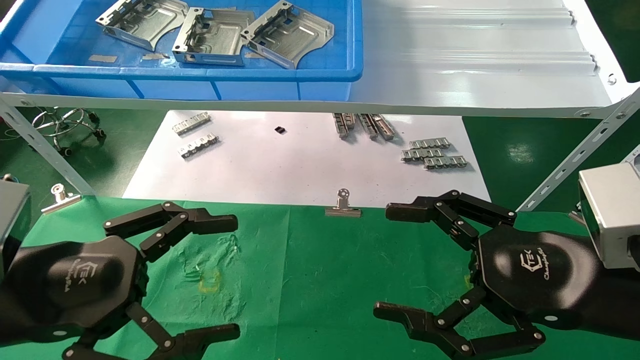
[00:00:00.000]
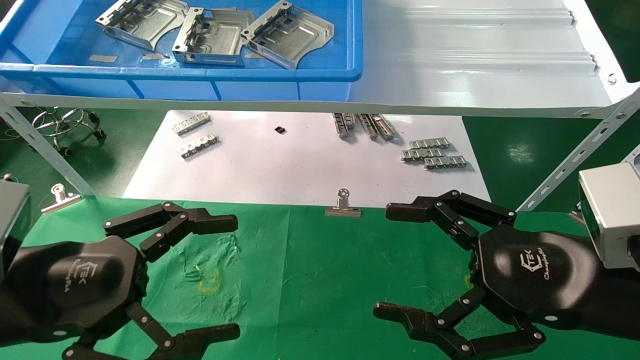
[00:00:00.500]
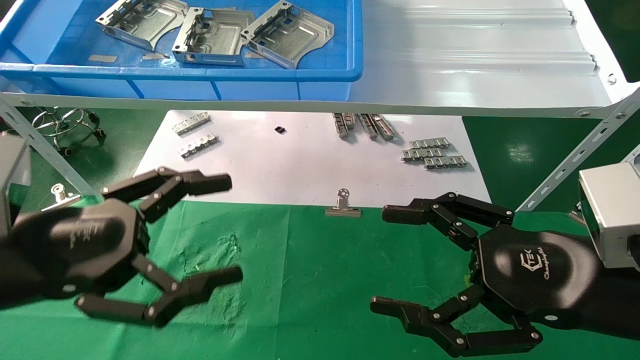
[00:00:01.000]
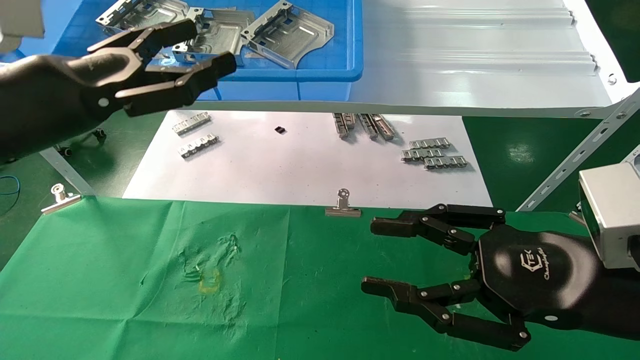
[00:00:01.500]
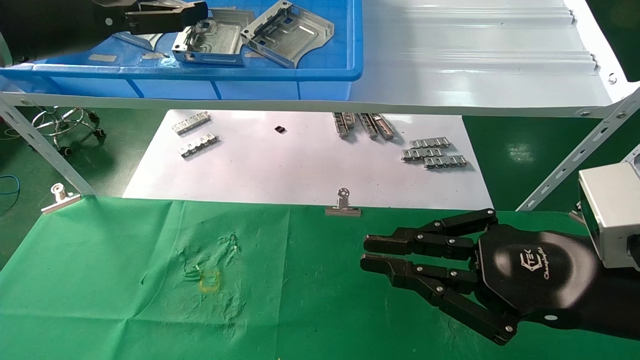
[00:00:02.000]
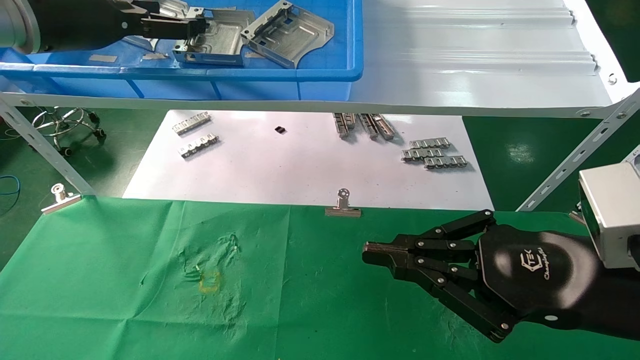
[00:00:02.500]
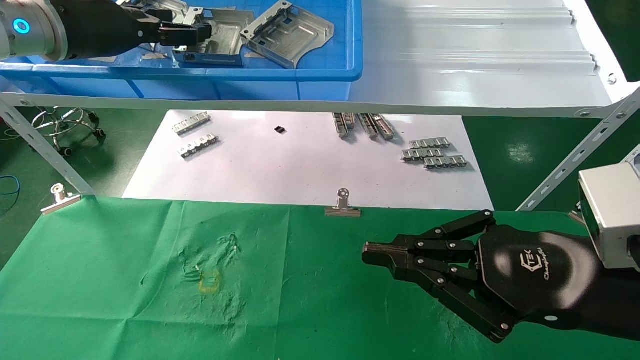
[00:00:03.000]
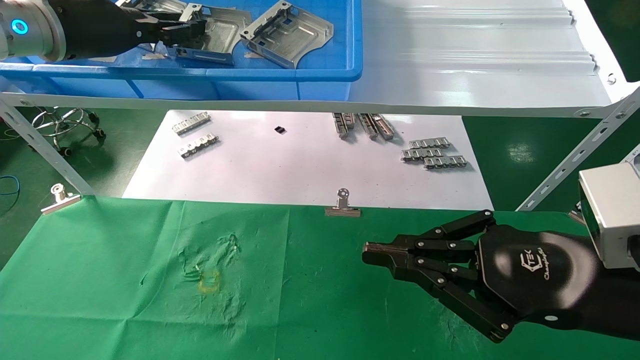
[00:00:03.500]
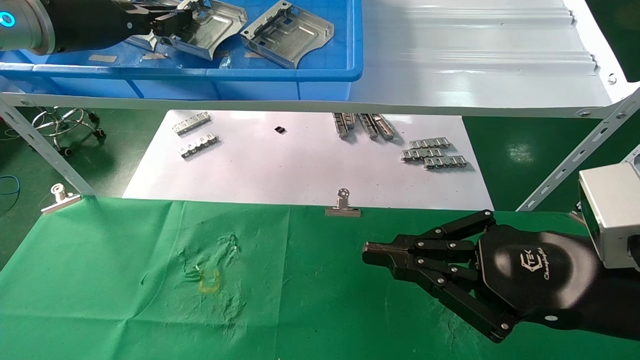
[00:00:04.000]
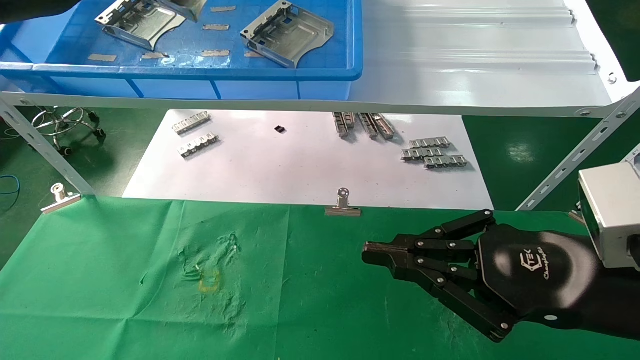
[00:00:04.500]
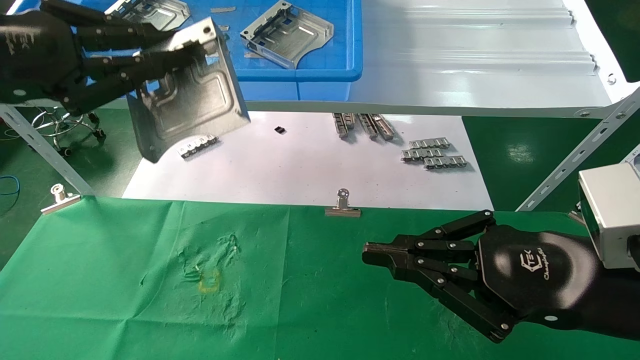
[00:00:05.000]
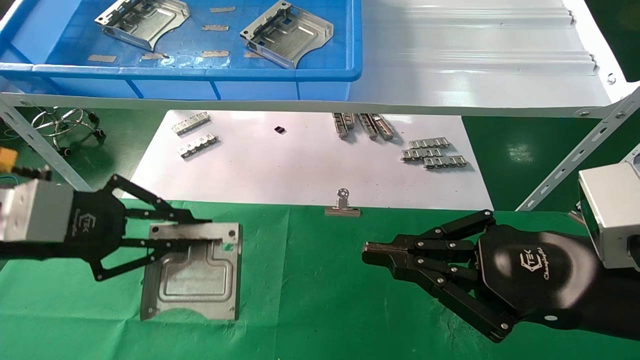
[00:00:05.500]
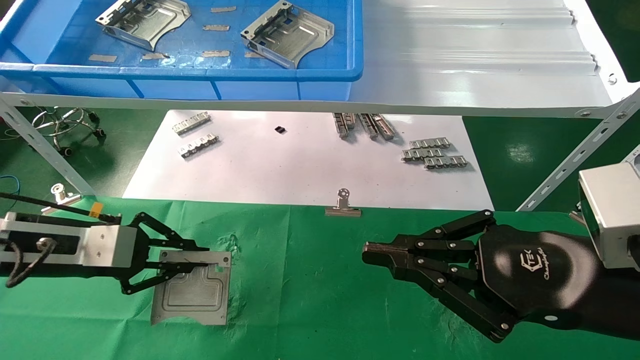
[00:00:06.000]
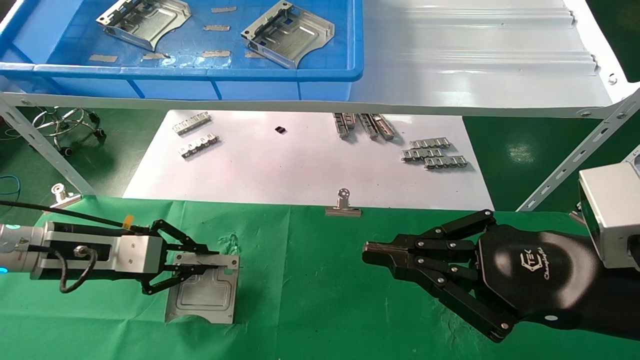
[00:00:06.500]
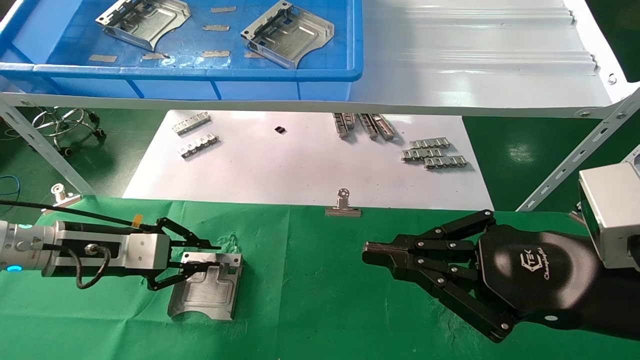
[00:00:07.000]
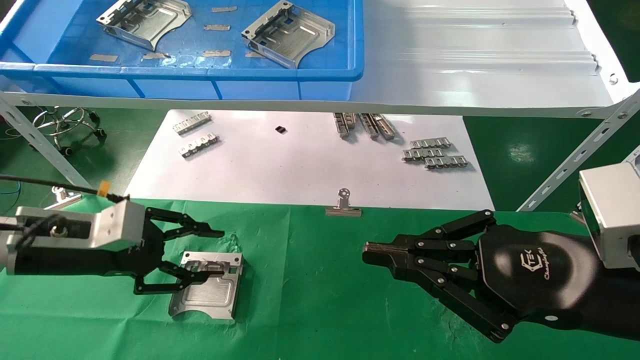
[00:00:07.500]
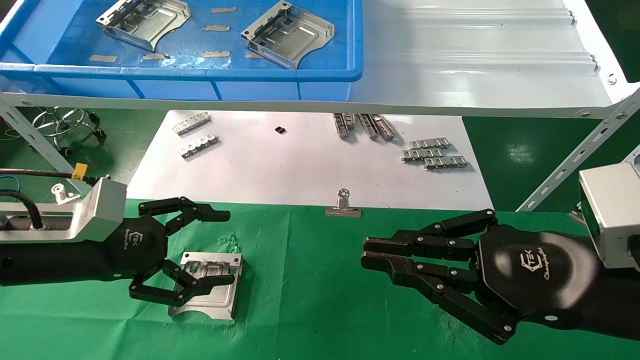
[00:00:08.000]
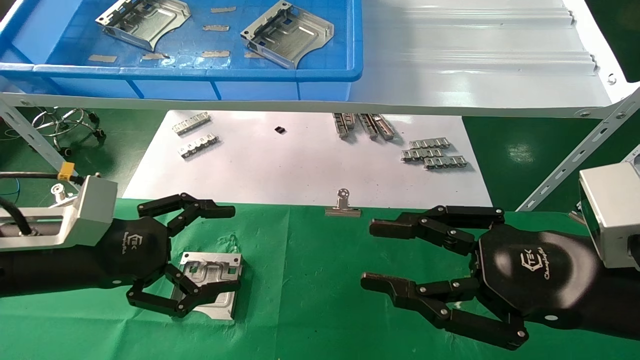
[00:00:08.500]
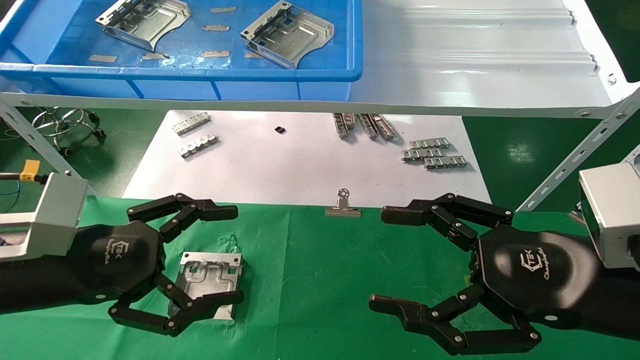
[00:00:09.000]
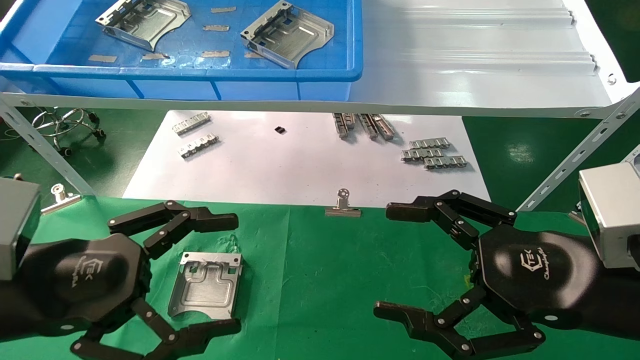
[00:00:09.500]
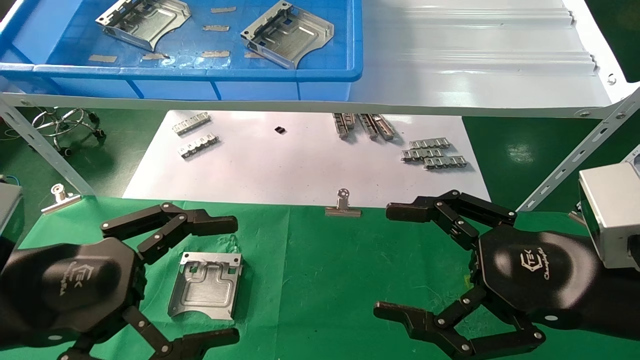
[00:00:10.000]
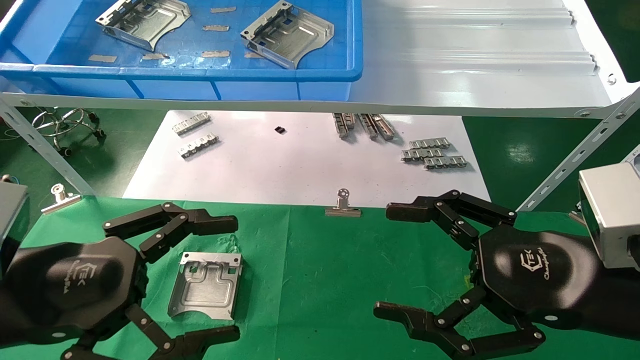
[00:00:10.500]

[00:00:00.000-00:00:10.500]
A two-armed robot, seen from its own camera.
Task of the whole recording: use the mechanical arm to pick up the parts and place them on the table.
Step, 00:00:01.500 to 00:00:04.000: Pick up the hard drive bracket from the feeding area.
Step, 00:00:04.500 to 00:00:07.000: Place the hard drive bracket into the box.
00:00:00.000 to 00:00:02.000: The left gripper travels upward and forward by approximately 25 cm; the right gripper closes its fingers.
00:00:02.000 to 00:00:04.000: The left gripper moves forward, some 5 cm, and closes its fingers.
00:00:04.000 to 00:00:06.500: The left gripper moves downward, approximately 25 cm.
00:00:06.500 to 00:00:08.500: The left gripper heads backward, covering approximately 10 cm, and opens up.
00:00:08.500 to 00:00:10.500: The right gripper opens its fingers, while the left gripper moves backward, roughly 10 cm.
